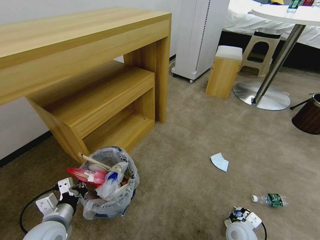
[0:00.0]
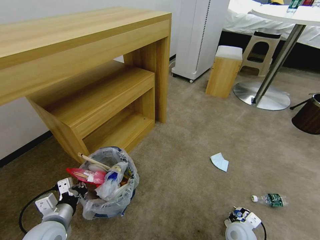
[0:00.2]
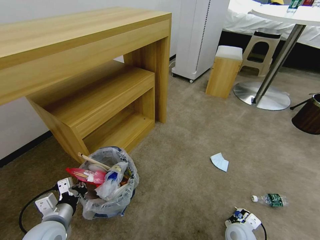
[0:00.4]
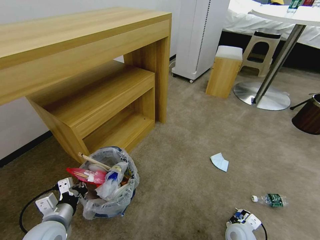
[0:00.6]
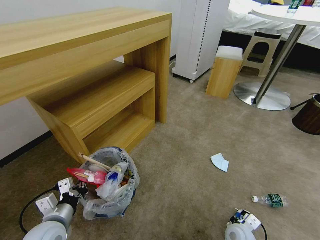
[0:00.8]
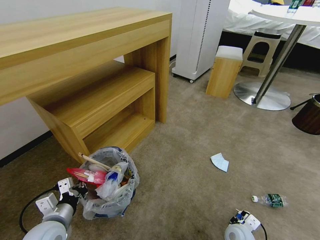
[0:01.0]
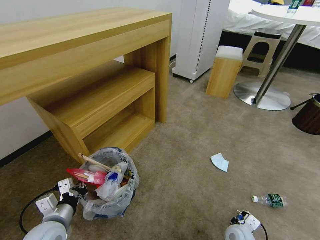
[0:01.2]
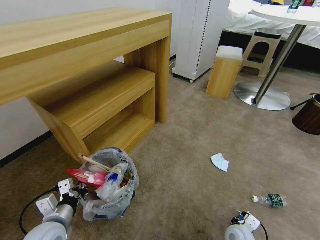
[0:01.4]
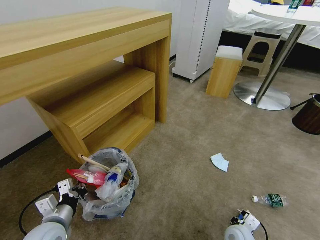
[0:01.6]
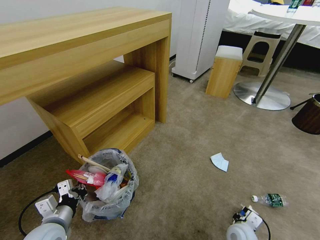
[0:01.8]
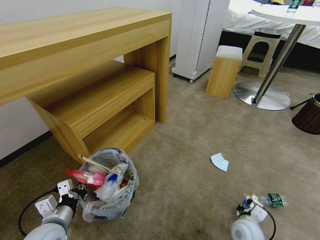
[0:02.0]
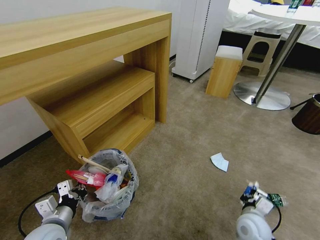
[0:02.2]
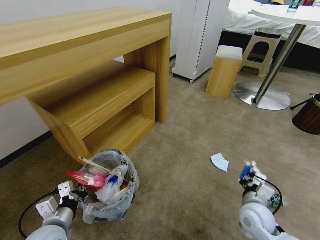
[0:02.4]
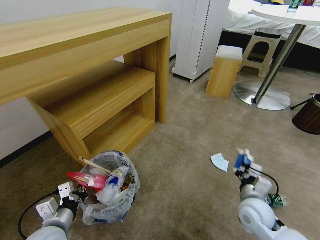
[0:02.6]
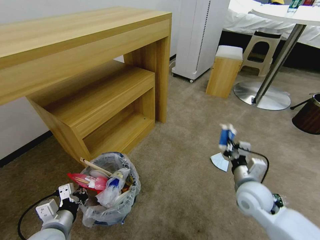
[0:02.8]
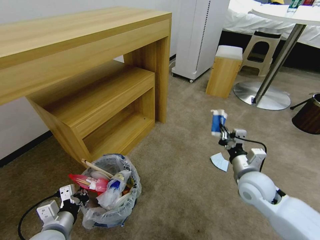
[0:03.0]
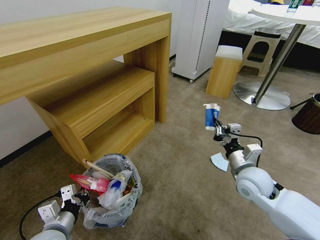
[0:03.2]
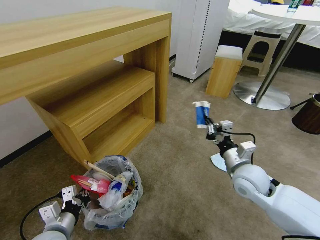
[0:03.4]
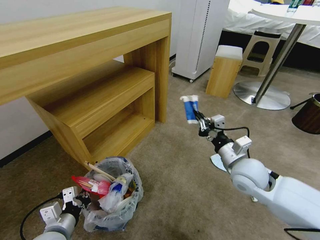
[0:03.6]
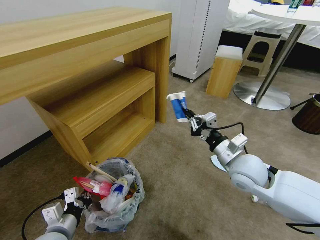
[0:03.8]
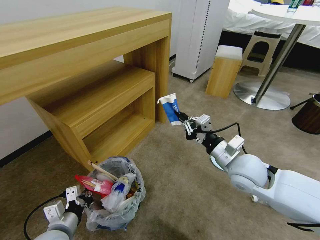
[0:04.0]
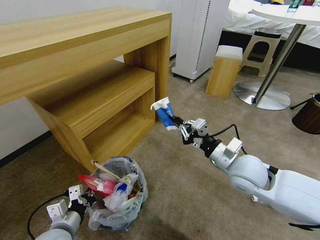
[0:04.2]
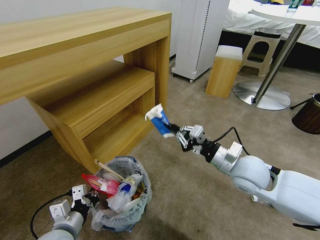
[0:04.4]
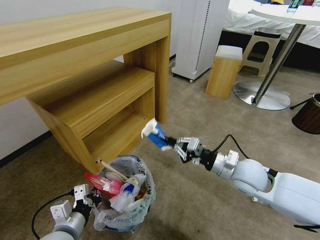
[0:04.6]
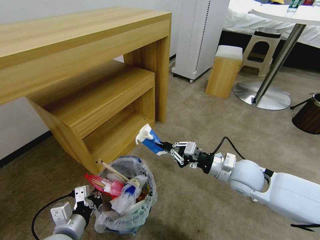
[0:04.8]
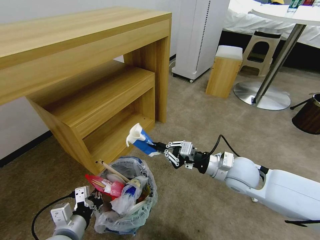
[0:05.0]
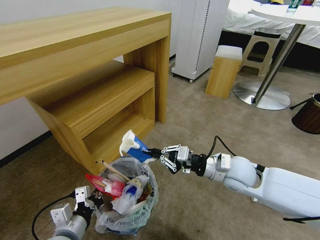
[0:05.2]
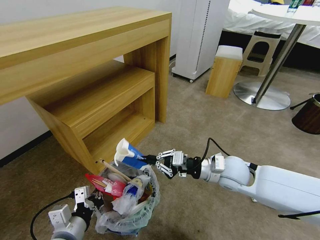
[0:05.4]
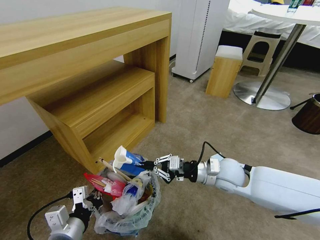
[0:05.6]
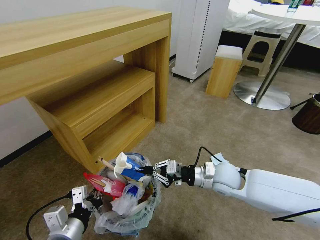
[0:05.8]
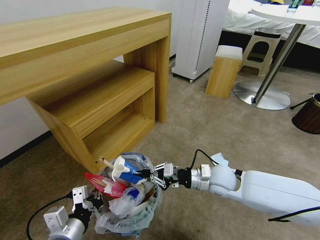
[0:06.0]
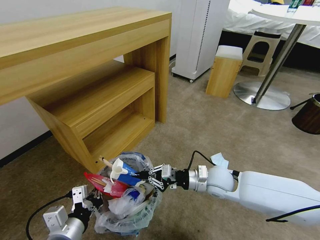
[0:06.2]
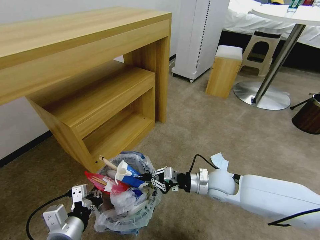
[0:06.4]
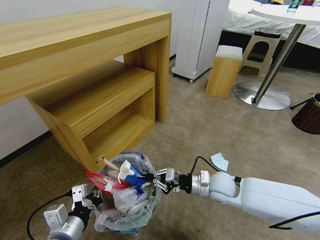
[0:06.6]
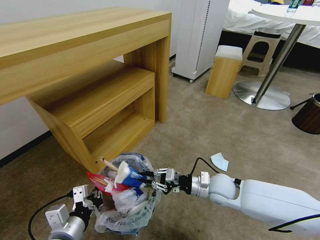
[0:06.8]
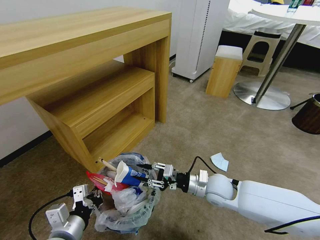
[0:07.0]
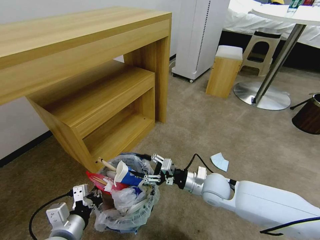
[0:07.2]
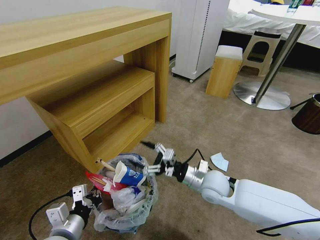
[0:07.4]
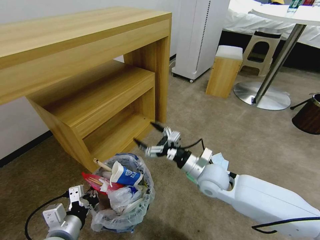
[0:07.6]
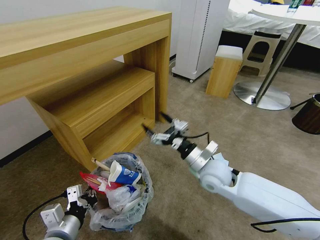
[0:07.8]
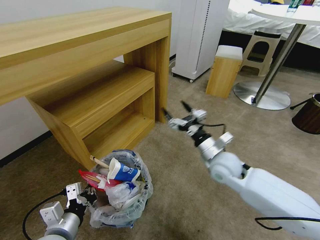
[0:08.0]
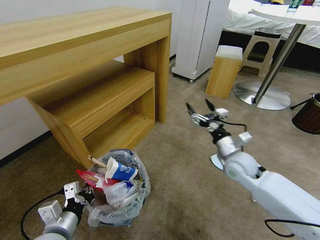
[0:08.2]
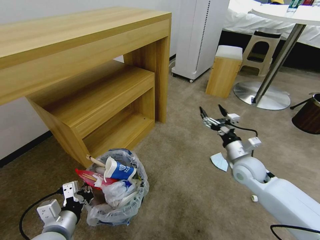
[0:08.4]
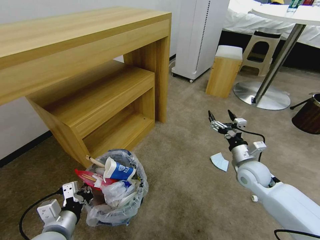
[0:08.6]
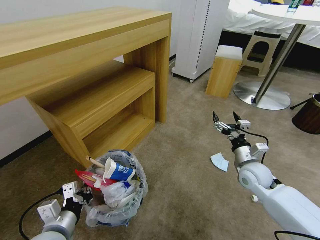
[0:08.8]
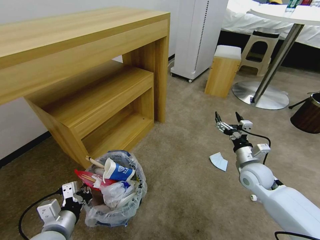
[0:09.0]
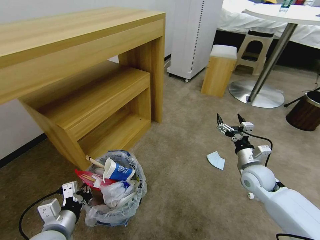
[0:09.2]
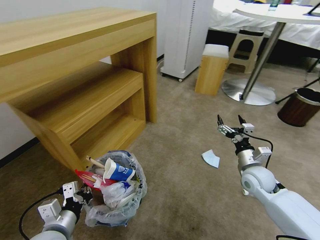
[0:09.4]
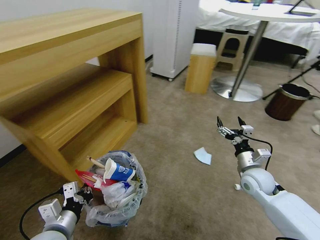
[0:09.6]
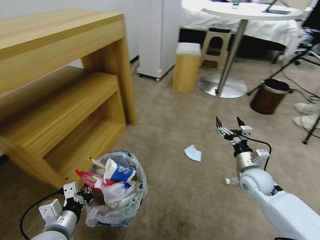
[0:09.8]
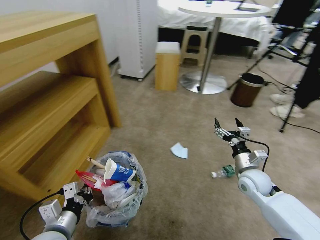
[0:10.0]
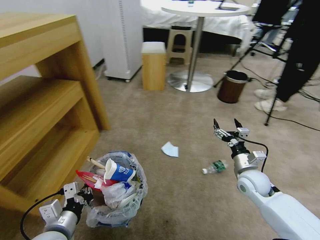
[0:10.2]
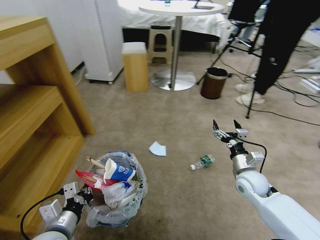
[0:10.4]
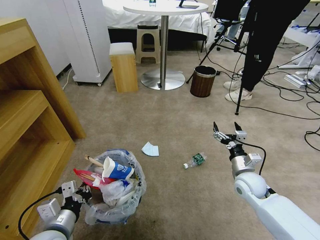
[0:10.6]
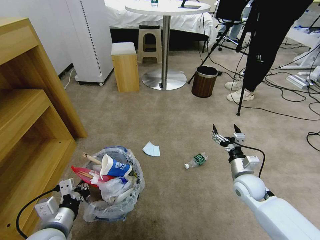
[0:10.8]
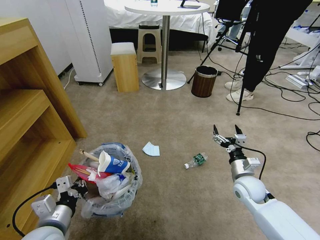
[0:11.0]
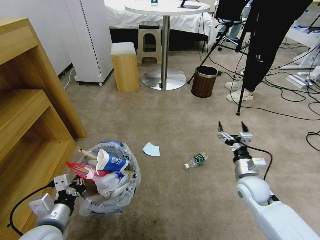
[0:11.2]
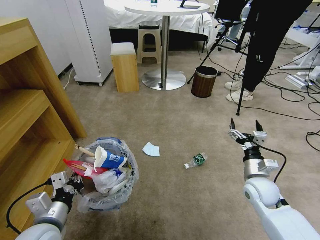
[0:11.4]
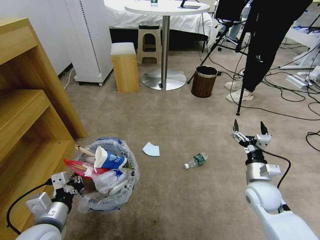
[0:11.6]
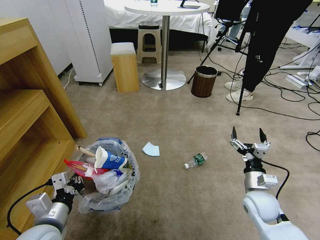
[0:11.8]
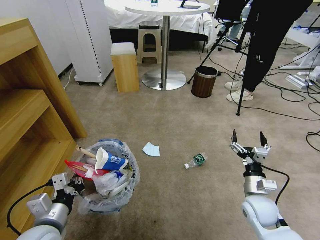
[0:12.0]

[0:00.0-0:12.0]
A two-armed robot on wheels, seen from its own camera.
Task of the whole recording: Pick up the trash bin and place the garbage on the floor into it.
0:00.0 to 0:01.6: The right gripper closes up.
0:01.6 to 0:03.0: The right gripper is displaced upward and forward by approximately 20 cm.
0:03.0 to 0:04.4: The right gripper moves upward, about 5 cm.
0:04.4 to 0:06.0: The left gripper is displaced upward by about 5 cm. The right gripper goes roughly 10 cm downward.
0:06.0 to 0:07.6: The right gripper opens up.
0:07.6 to 0:09.0: The right gripper moves to the right, some 15 cm.
0:10.4 to 0:12.0: The right gripper is displaced backward by roughly 10 cm.

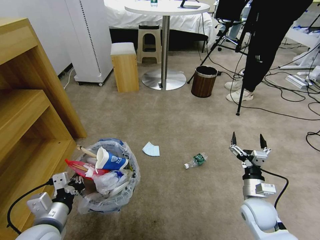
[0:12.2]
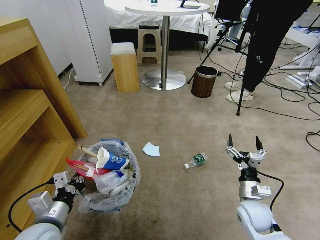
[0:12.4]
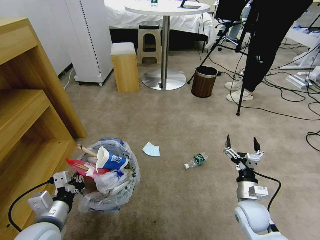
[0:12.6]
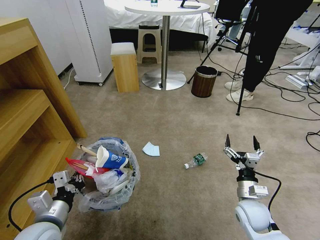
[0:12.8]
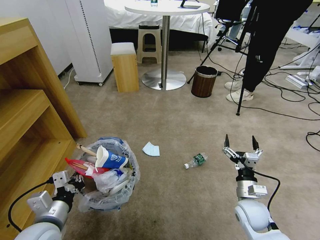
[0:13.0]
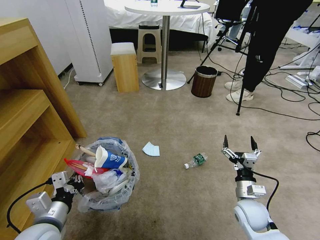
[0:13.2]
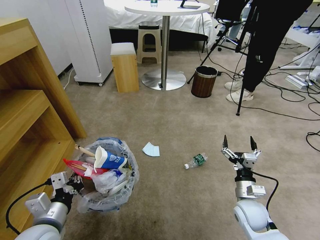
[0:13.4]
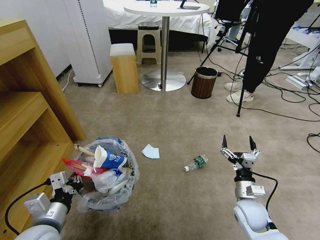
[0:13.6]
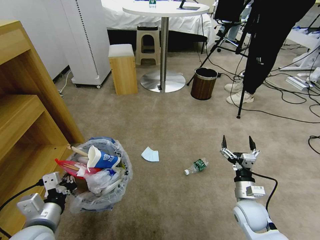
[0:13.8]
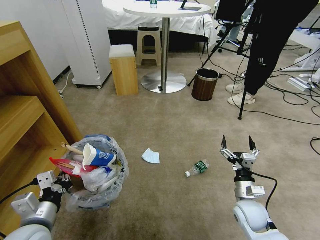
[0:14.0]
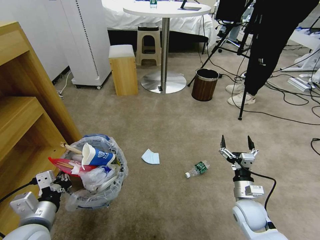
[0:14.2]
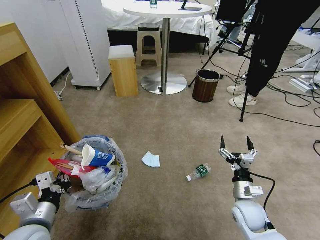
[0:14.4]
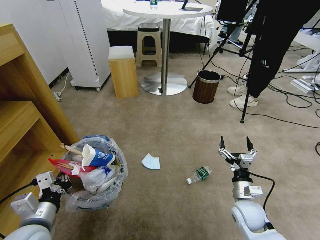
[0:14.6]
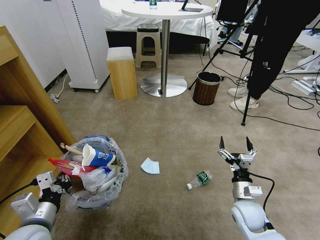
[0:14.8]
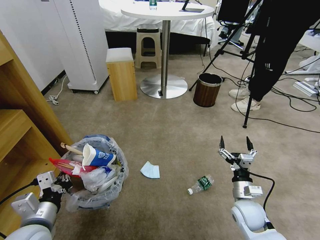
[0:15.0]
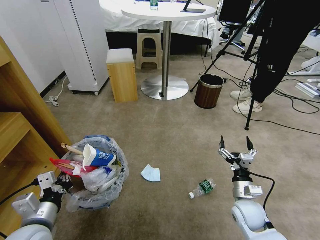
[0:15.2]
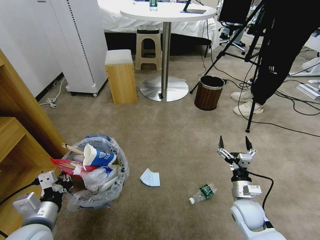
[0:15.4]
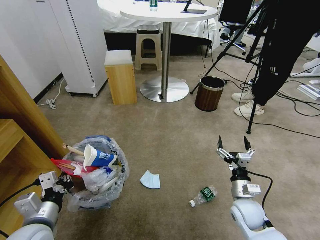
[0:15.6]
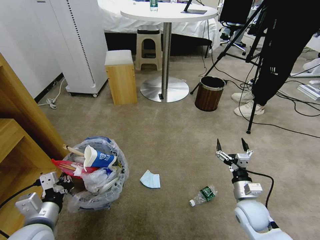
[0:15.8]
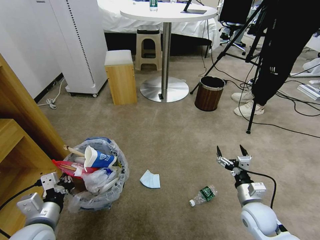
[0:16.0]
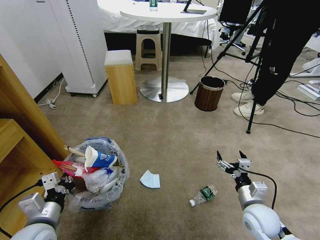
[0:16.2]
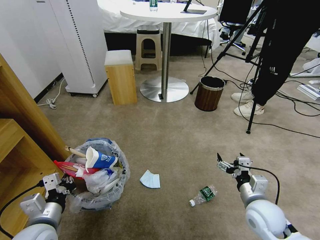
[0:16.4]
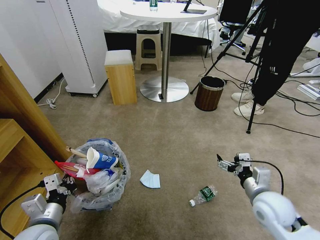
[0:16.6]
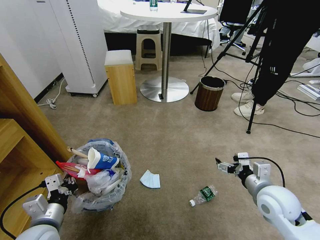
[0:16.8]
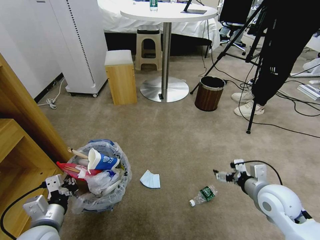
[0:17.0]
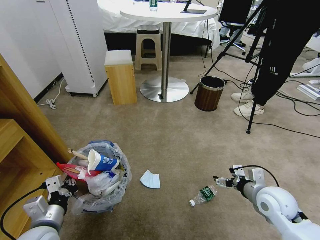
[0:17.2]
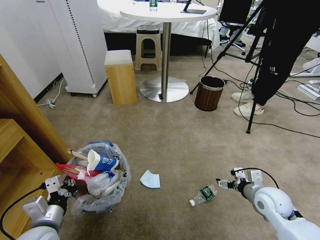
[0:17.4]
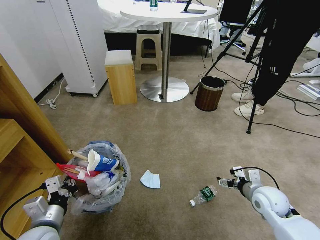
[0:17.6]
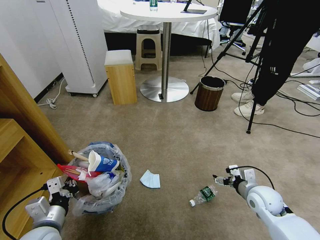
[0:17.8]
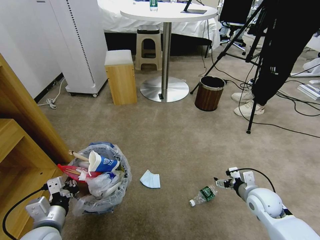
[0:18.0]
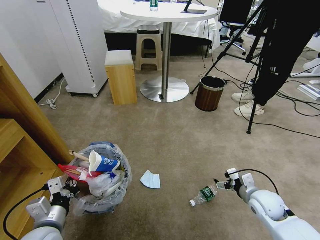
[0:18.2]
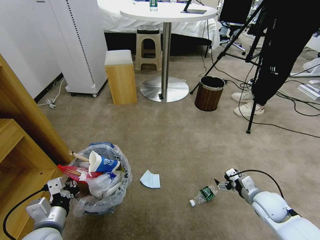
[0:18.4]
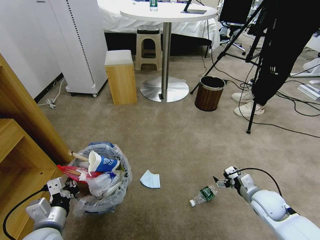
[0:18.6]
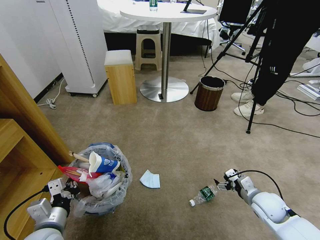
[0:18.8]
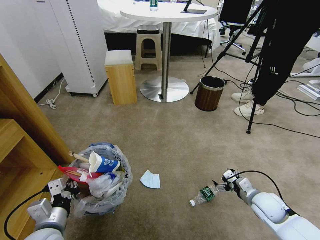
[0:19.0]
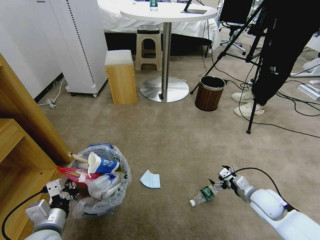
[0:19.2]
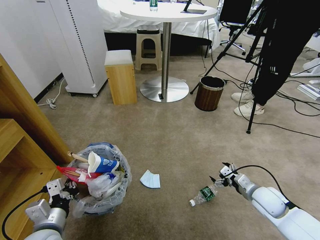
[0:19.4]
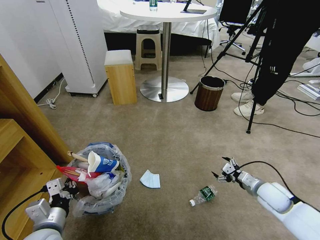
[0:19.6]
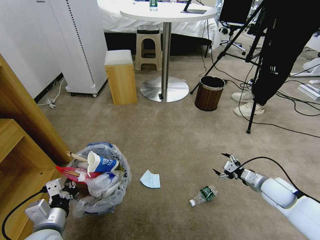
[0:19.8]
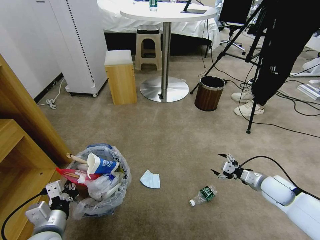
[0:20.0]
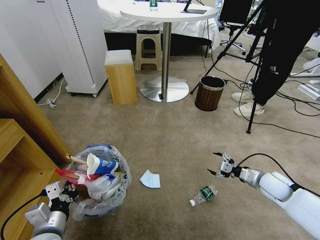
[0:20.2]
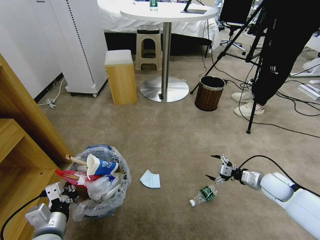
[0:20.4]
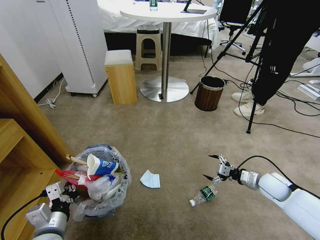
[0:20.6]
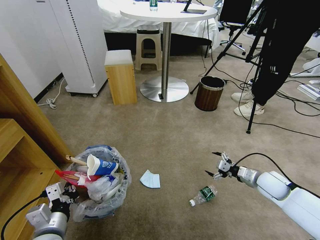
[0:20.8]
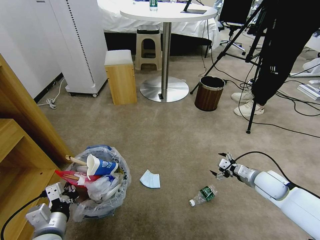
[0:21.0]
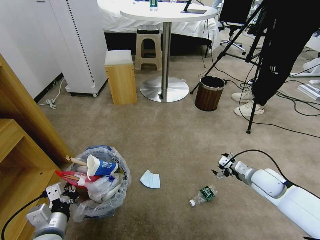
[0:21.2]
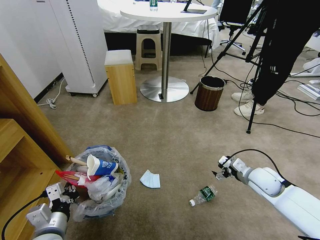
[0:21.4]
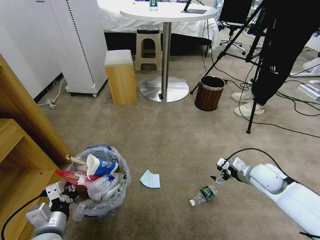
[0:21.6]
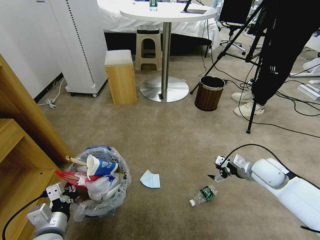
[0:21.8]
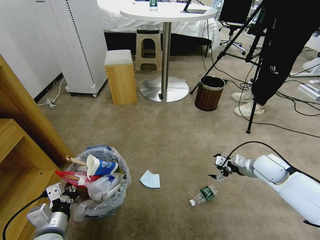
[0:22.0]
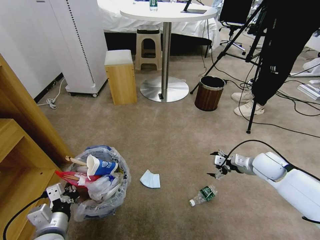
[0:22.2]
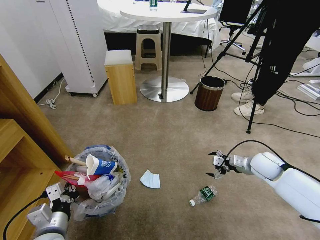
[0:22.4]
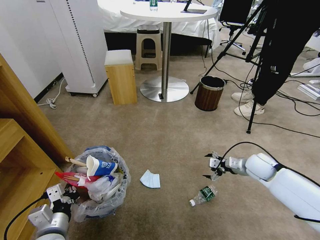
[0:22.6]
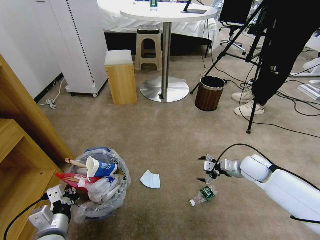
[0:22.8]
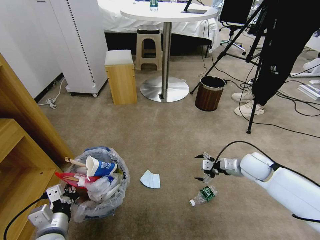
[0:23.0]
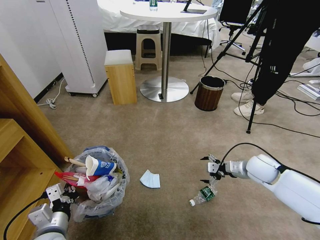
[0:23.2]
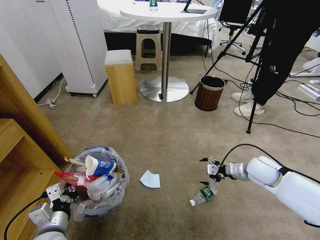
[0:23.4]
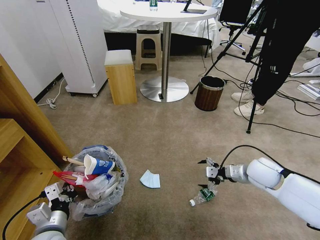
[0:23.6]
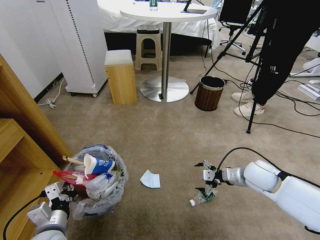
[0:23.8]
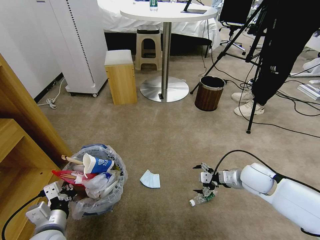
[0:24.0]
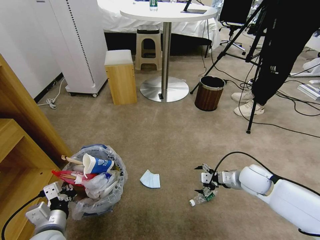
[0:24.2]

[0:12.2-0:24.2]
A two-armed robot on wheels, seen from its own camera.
Task of the whole recording: Pick up the trash bin and place the garbage on the floor into it.
0:15.2 to 0:16.6: The right gripper moves upward, roughly 10 cm.
0:16.6 to 0:18.2: The right gripper travels downward by roughly 5 cm.
0:18.2 to 0:19.8: The right gripper is displaced to the right by about 5 cm.
0:19.8 to 0:21.2: The grippers stay close to where they were, moving slightly.
0:21.2 to 0:22.6: The right gripper moves forward, some 5 cm.
0:22.6 to 0:24.2: The right gripper shifts some 5 cm backward.
